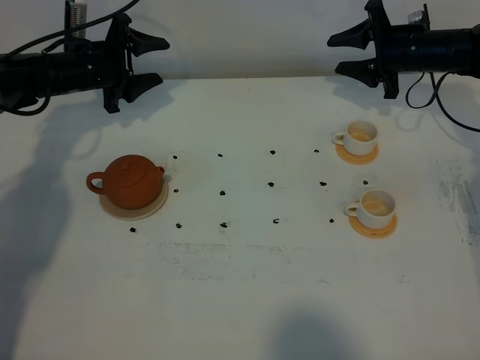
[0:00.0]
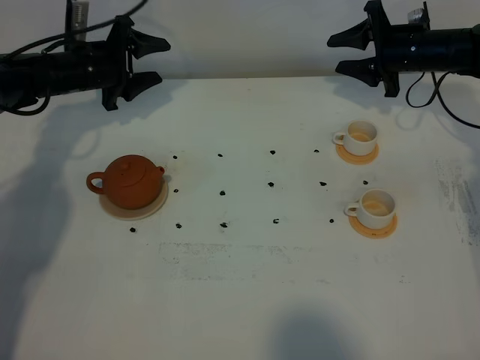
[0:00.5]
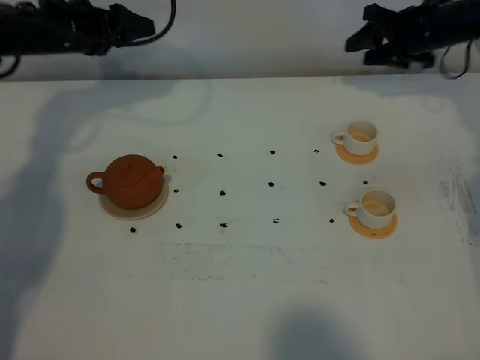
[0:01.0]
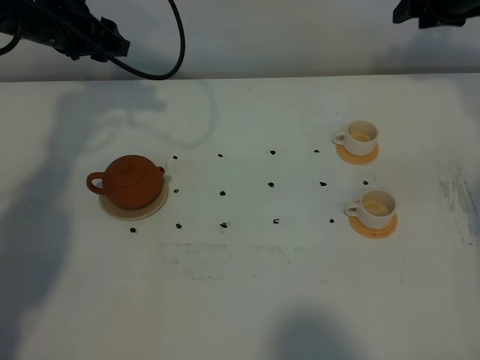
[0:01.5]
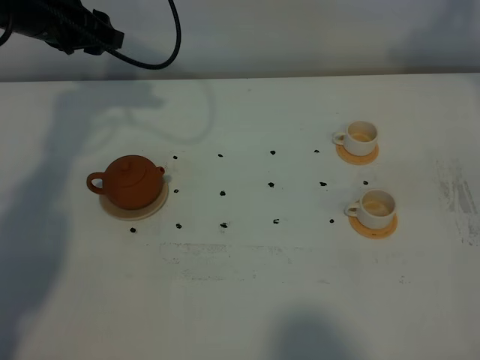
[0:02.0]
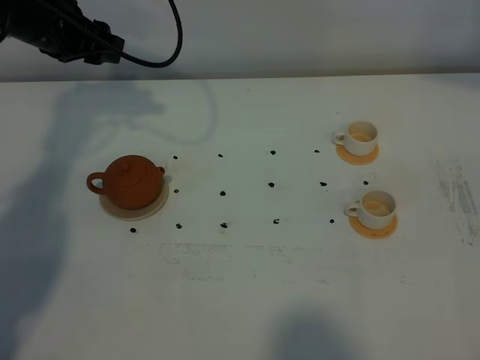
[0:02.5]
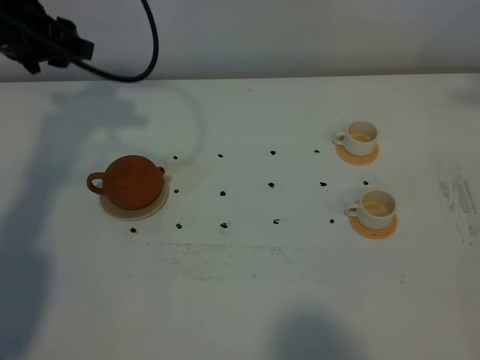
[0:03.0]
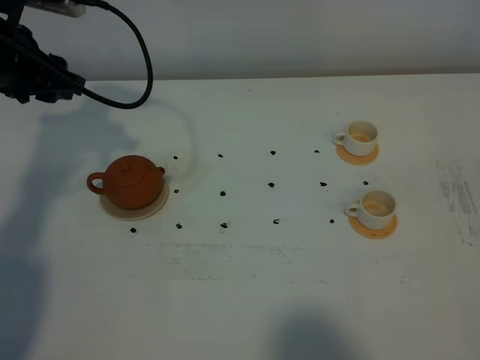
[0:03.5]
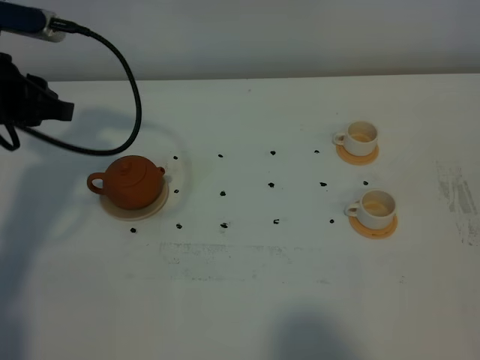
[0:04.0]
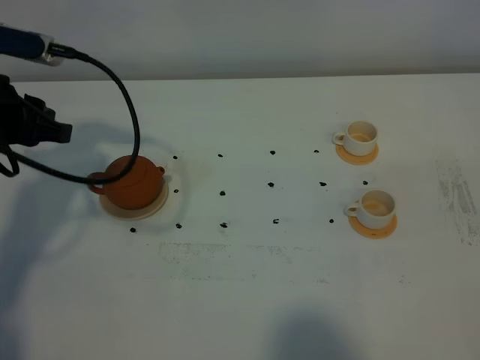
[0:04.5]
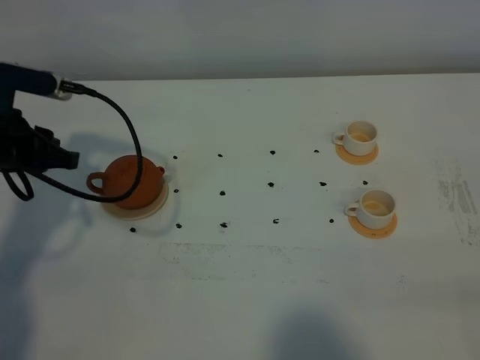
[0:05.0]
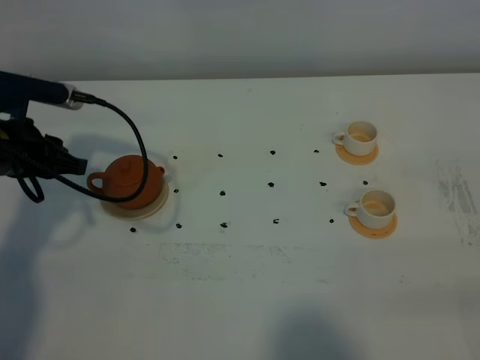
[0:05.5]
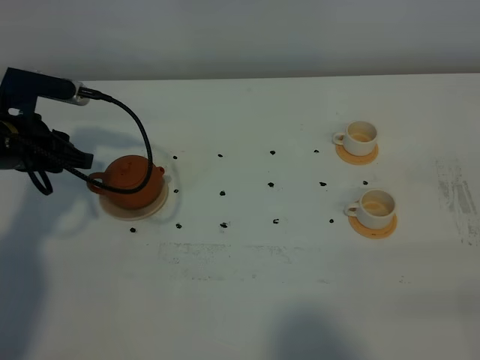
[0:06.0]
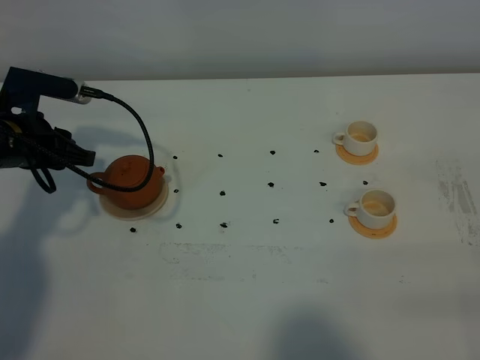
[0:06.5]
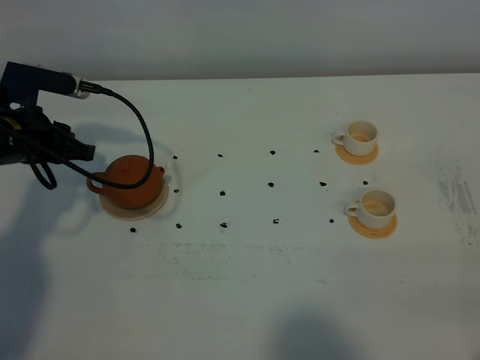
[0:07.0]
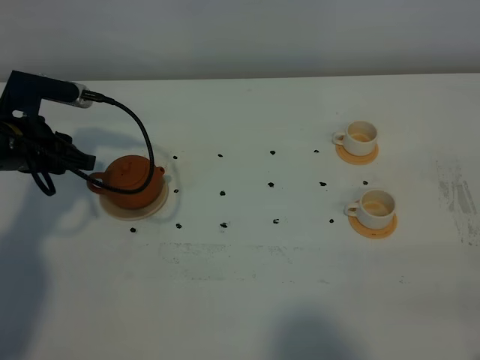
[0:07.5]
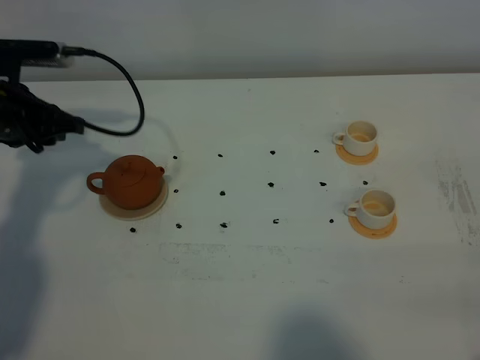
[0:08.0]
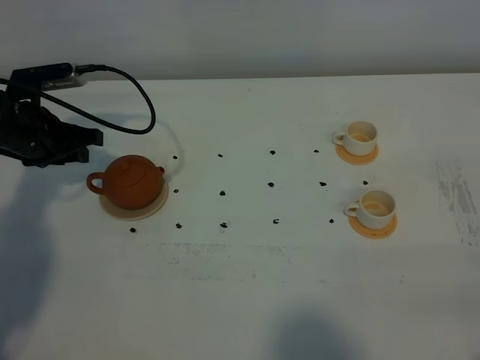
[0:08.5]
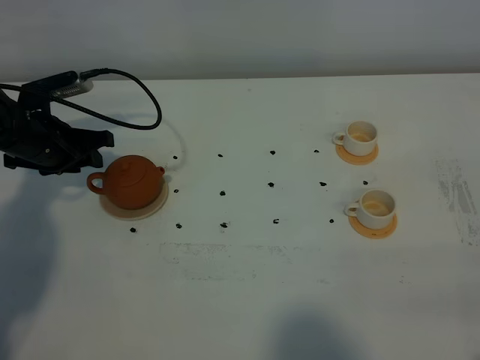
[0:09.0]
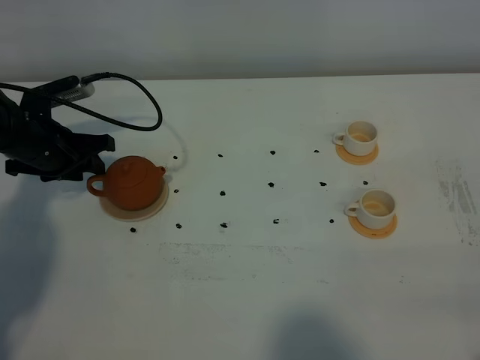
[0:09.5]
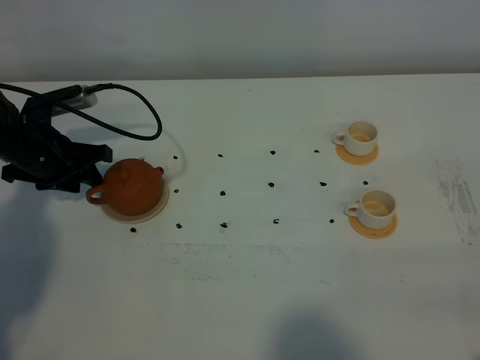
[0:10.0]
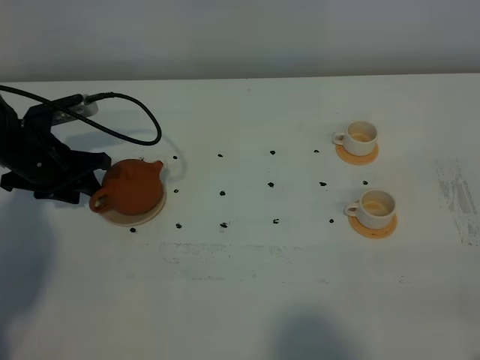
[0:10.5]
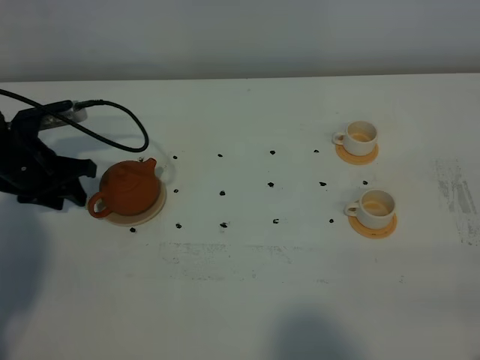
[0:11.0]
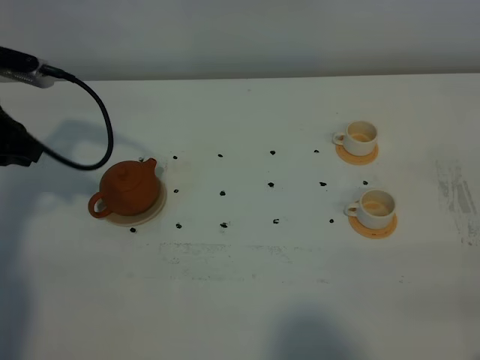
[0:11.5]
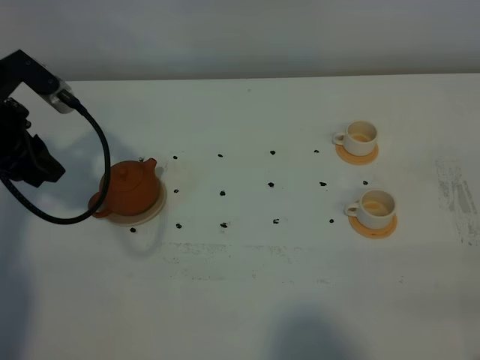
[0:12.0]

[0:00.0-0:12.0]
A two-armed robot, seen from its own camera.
Task of the whole recording: grasp the brown teapot and pour the tea into the two white teacups one by one, put the brown teapot back in its original place.
0.0 to 2.0 s: The left gripper moves upward, roughly 15 cm, while the right gripper is displaced upward by roughly 20 cm.
2.0 to 4.0 s: The left gripper shifts roughly 15 cm backward.
4.0 to 6.0 s: The left gripper heads downward, covering approximately 10 cm.
6.0 to 8.0 s: The grippers stay close to where they were, moving slightly.
8.0 to 10.0 s: The left gripper shifts approximately 10 cm downward.
10.0 to 12.0 s: The left gripper shifts some 10 cm upward and backward.

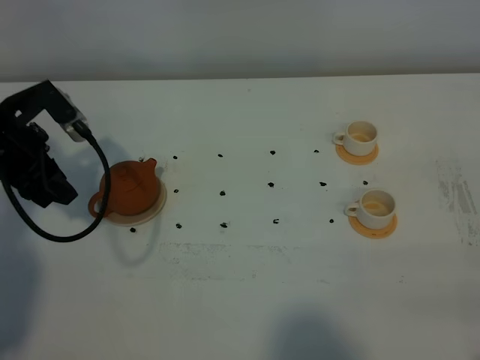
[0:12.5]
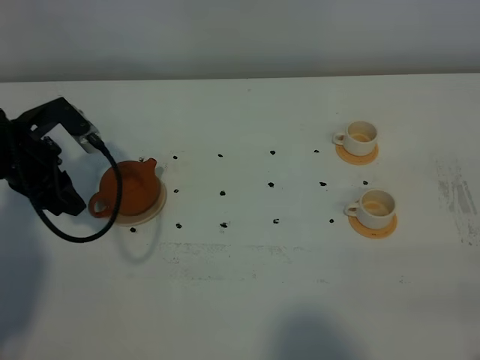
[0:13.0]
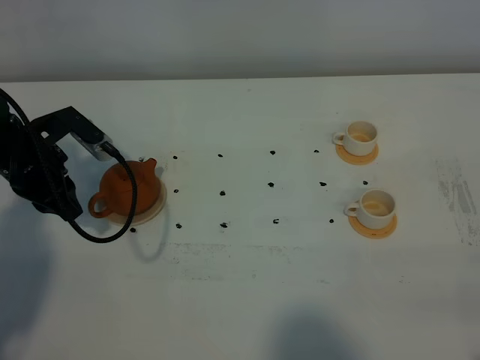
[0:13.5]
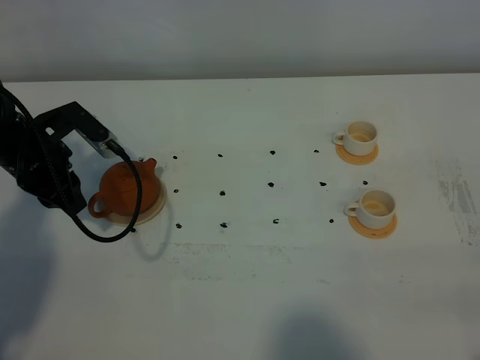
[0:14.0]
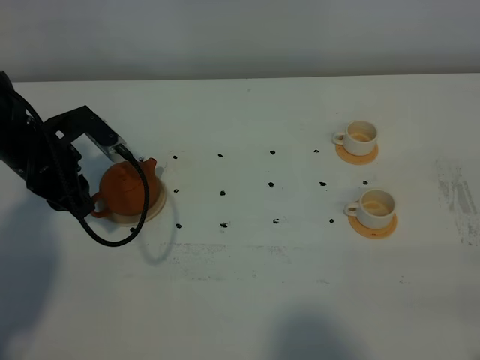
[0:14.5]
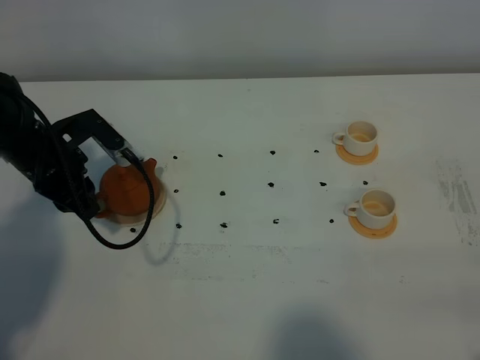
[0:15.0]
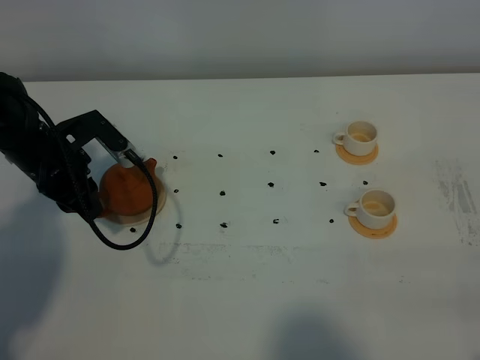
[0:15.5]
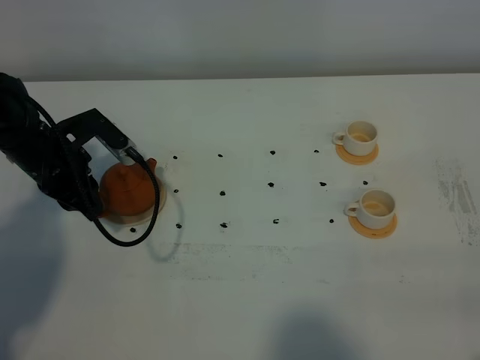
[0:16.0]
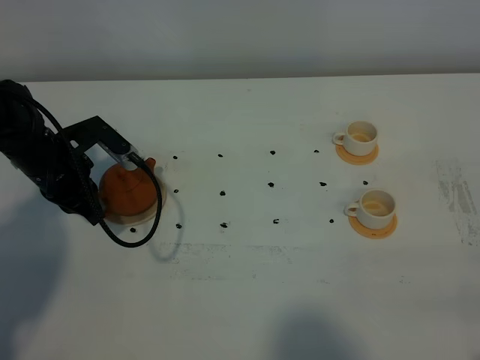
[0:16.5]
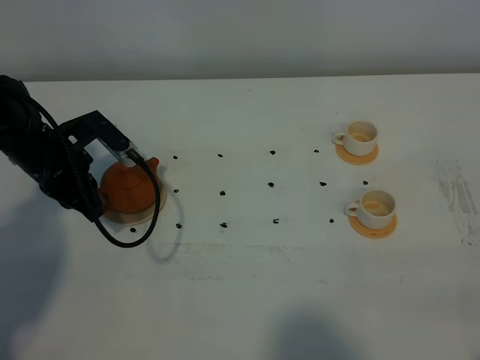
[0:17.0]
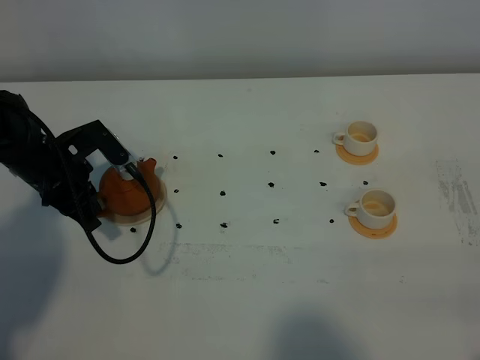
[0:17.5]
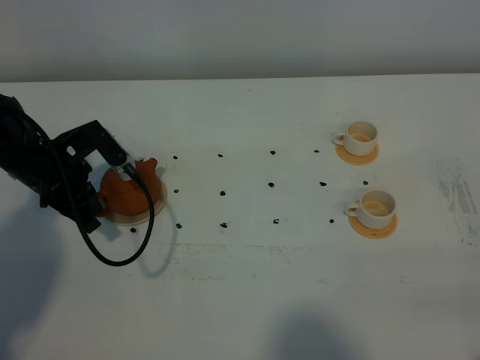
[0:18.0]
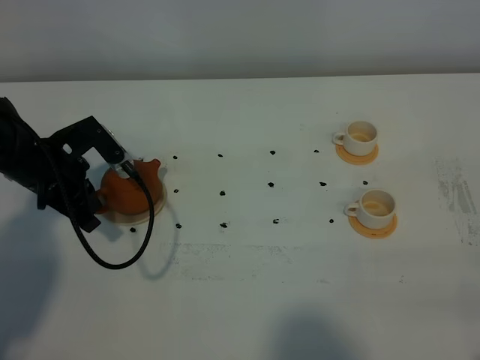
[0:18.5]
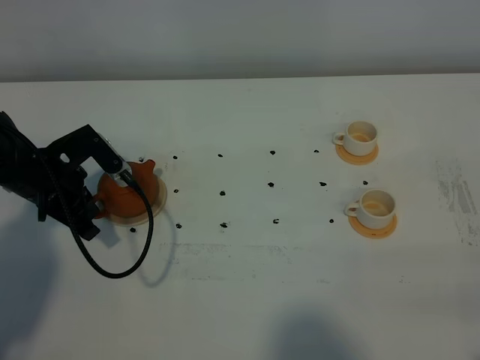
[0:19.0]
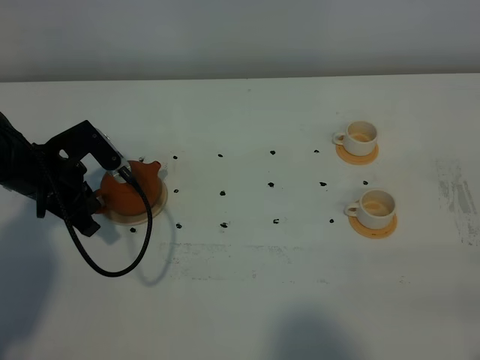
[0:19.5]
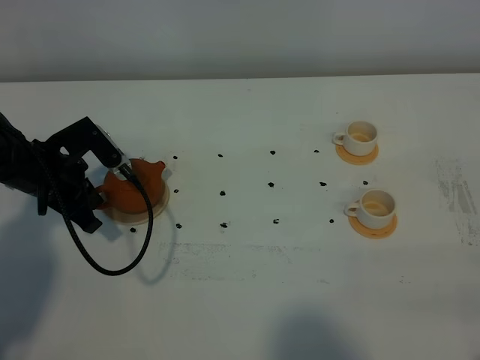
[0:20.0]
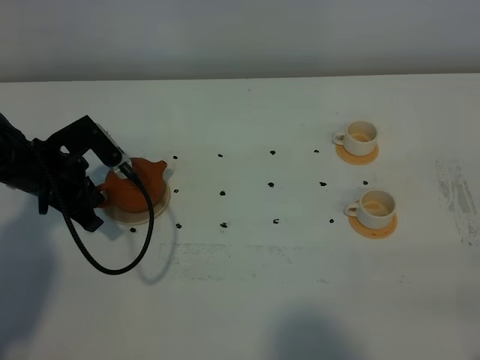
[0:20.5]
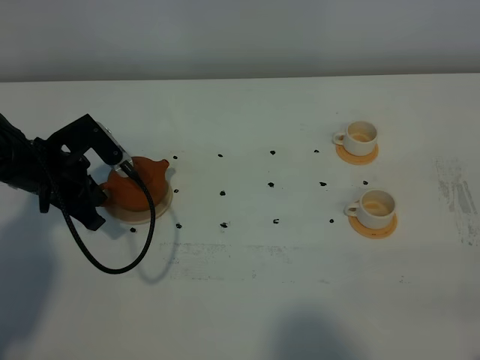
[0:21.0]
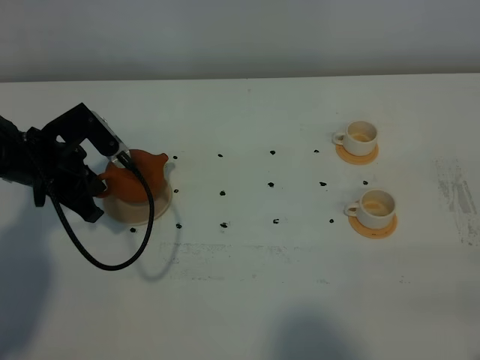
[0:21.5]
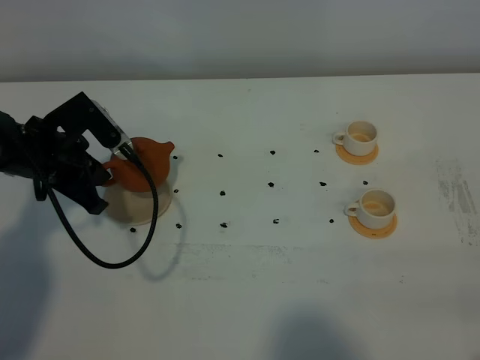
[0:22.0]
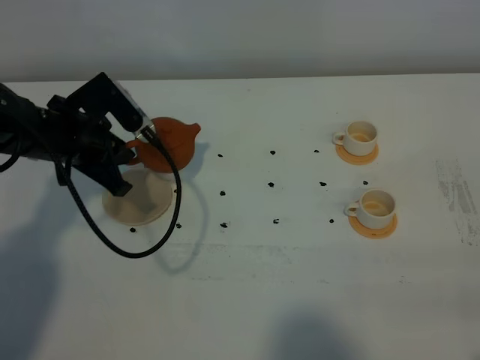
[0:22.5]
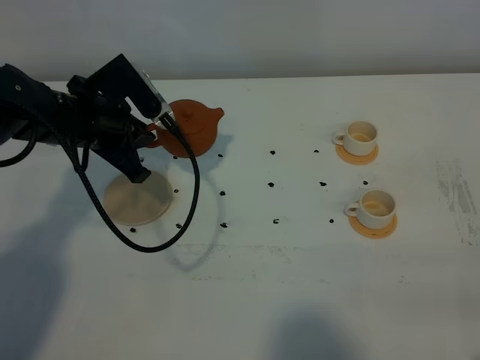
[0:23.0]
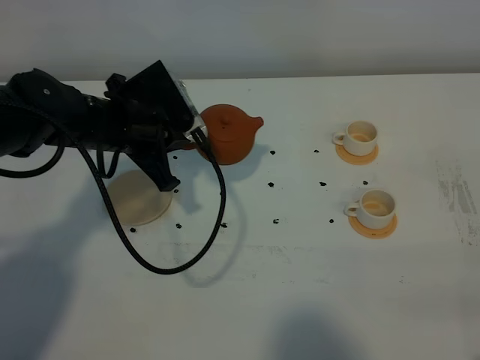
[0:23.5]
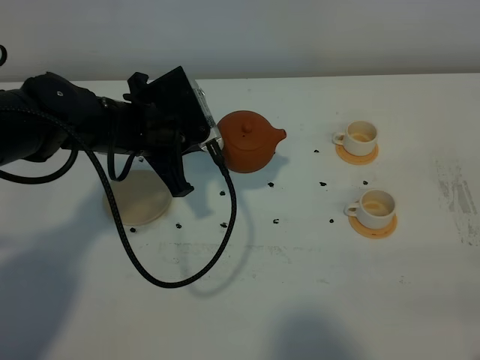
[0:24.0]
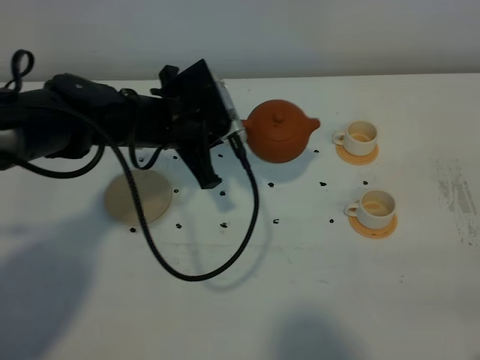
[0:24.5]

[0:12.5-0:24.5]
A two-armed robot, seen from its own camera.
Task of the whole recording: grasp the brown teapot and pour the tea into the two white teacups one by one, put the brown teapot back in its original place.
Step, 12.5 to 21.0 s: Pick up the teapot with the left gripper.
12.5 to 14.5 s: The left gripper shifts by about 5 cm.
14.5 to 16.5 s: The left gripper closes.
16.5 to 20.5 s: The grippers move only a little.
20.5 to 22.5 s: The left gripper shifts about 5 cm upward.
22.5 to 24.5 s: The left gripper moves to the right, approximately 10 cm.

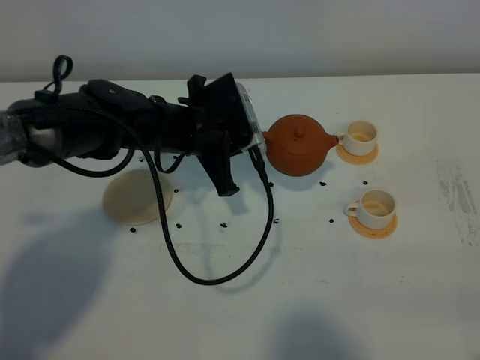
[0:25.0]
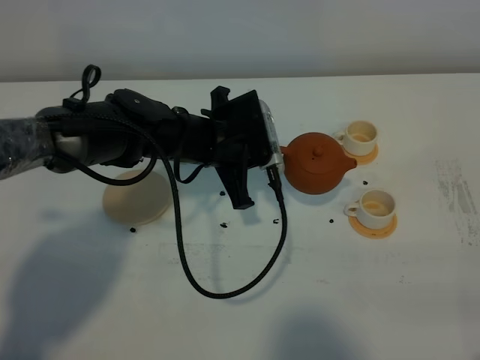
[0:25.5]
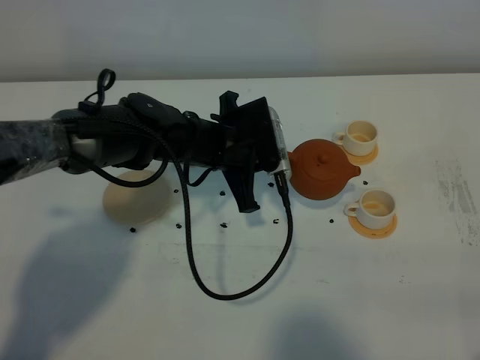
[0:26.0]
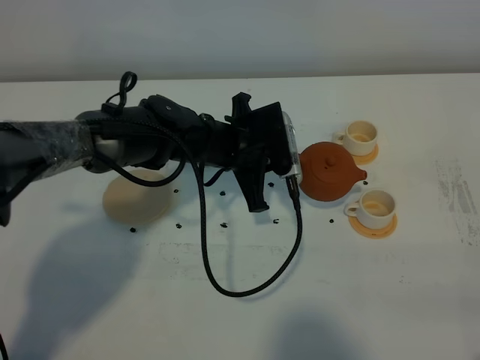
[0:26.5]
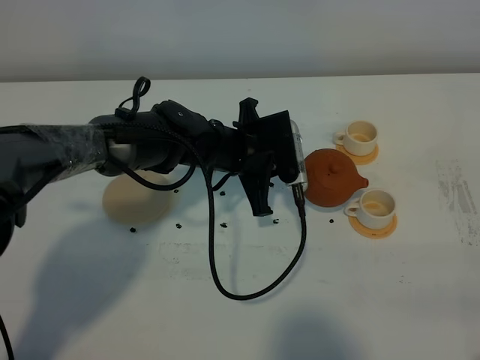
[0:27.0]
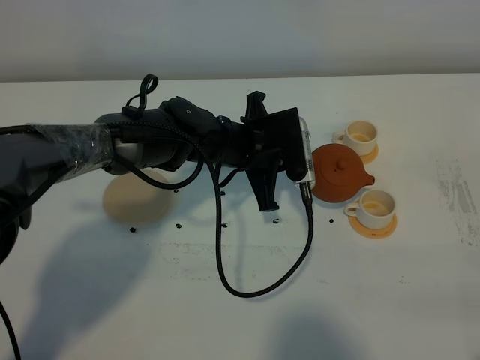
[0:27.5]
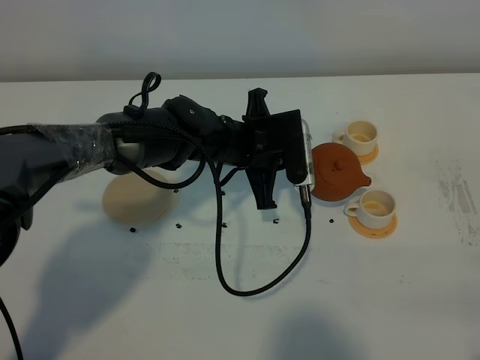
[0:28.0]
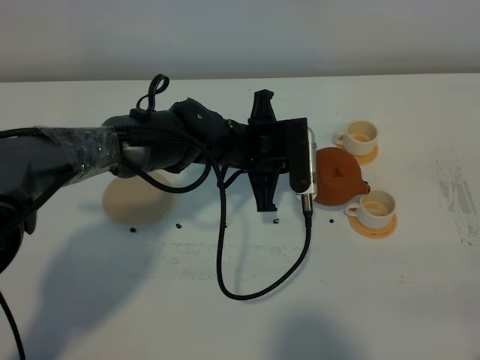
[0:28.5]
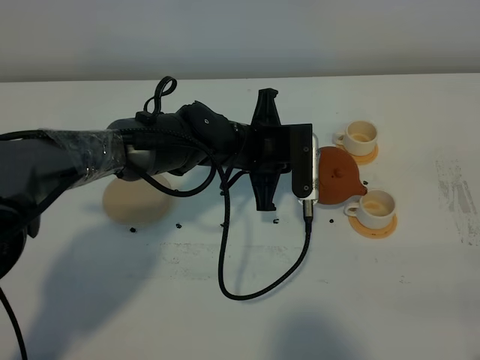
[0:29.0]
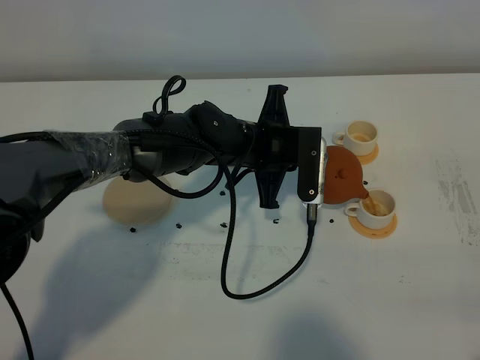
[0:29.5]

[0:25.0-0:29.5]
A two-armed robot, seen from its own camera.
Task of the whole recording: grasp the brown teapot and pour the tea into the two white teacups one by one, put the brown teapot back in its original place.
25.0 to 27.0 s: The left gripper moves to the right, about 5 cm.
